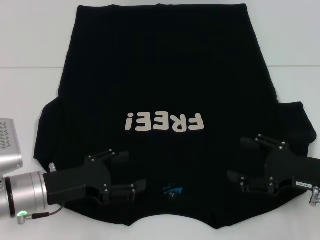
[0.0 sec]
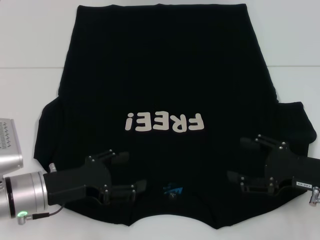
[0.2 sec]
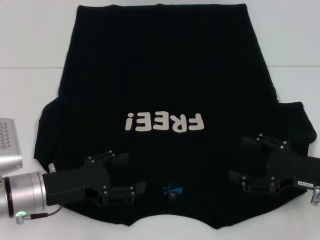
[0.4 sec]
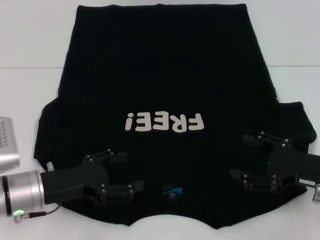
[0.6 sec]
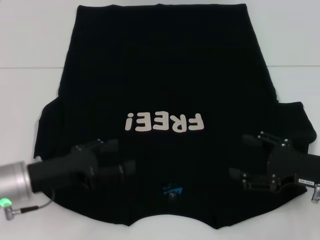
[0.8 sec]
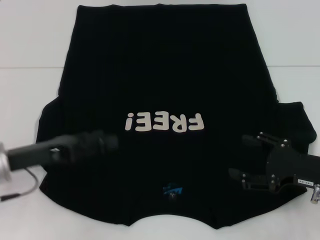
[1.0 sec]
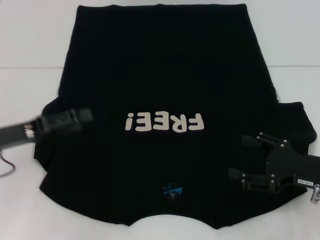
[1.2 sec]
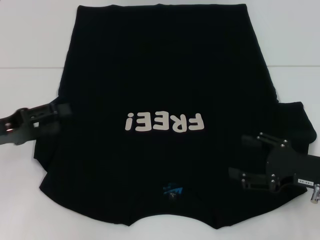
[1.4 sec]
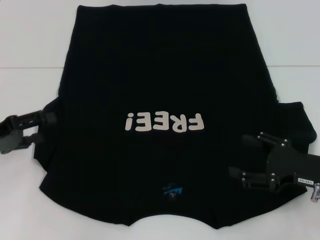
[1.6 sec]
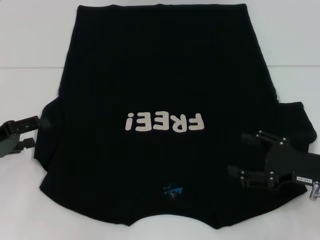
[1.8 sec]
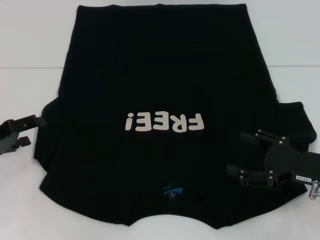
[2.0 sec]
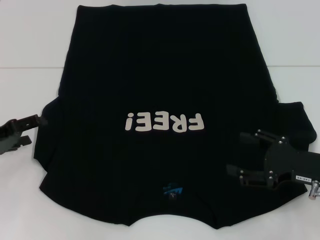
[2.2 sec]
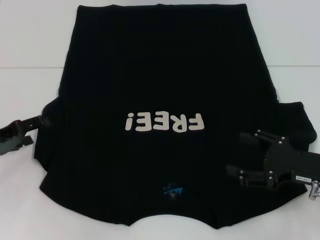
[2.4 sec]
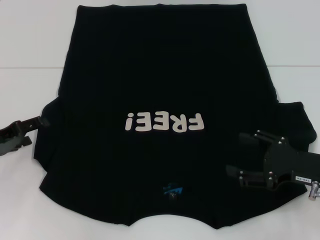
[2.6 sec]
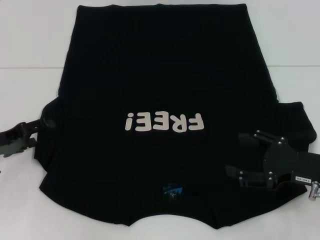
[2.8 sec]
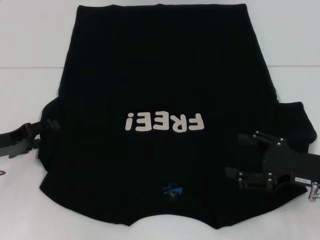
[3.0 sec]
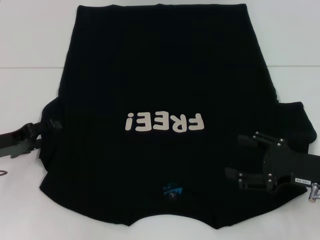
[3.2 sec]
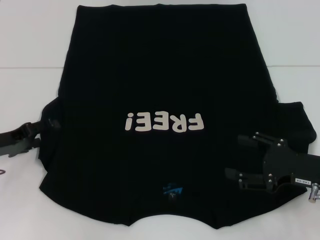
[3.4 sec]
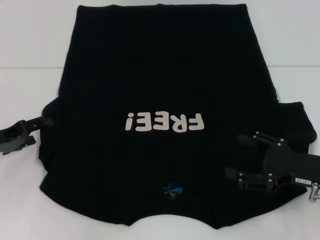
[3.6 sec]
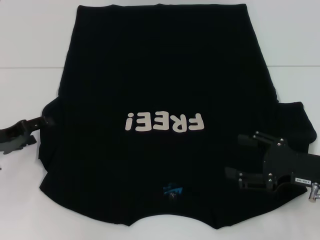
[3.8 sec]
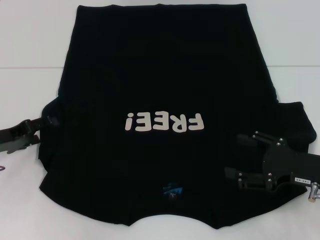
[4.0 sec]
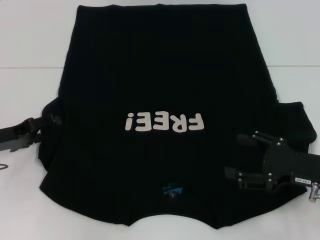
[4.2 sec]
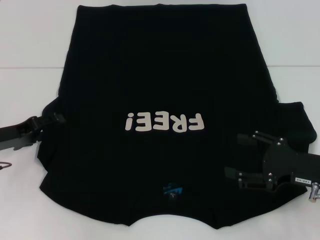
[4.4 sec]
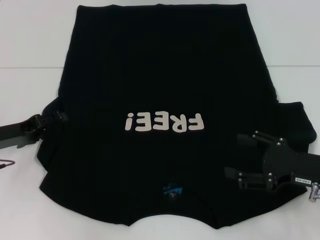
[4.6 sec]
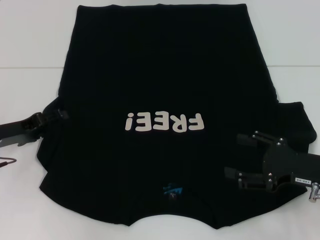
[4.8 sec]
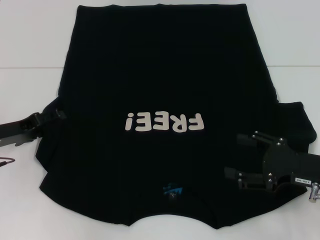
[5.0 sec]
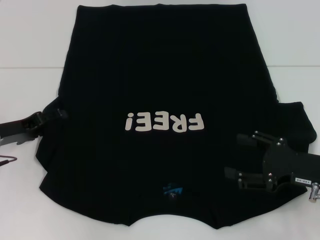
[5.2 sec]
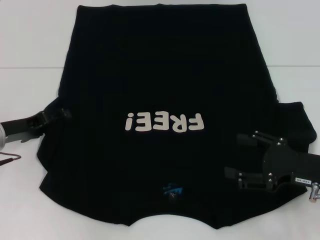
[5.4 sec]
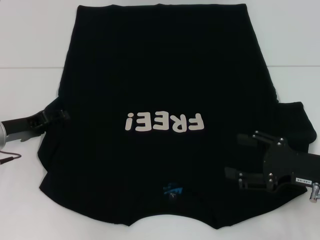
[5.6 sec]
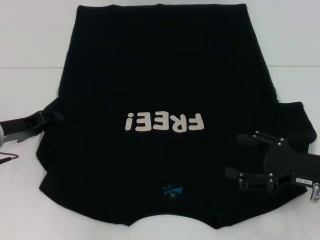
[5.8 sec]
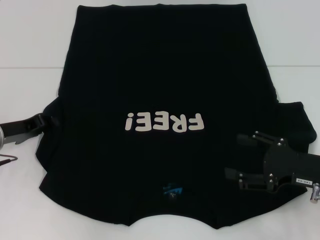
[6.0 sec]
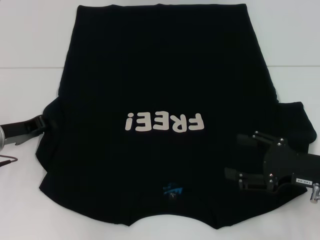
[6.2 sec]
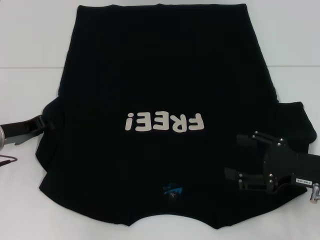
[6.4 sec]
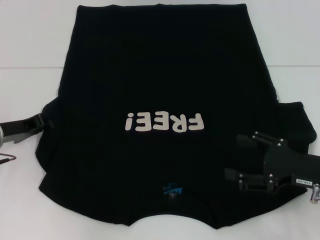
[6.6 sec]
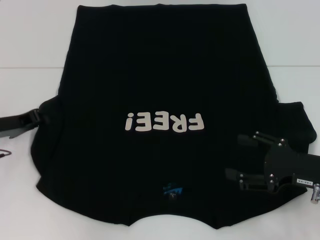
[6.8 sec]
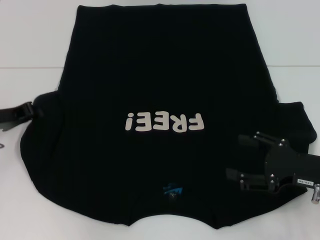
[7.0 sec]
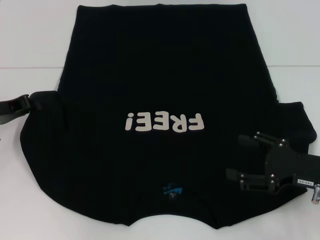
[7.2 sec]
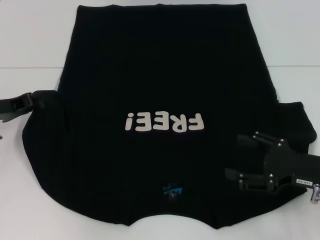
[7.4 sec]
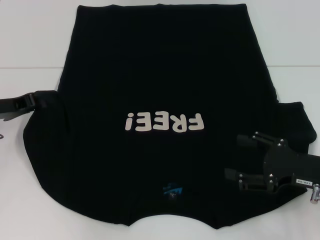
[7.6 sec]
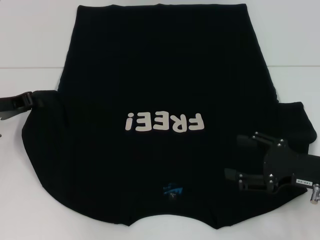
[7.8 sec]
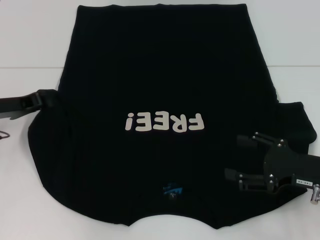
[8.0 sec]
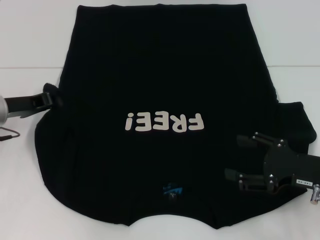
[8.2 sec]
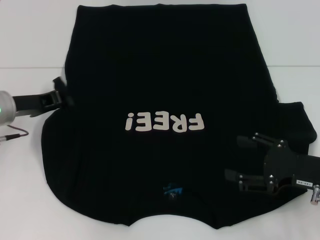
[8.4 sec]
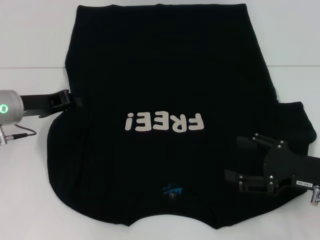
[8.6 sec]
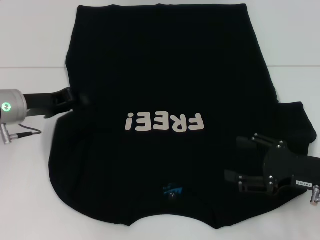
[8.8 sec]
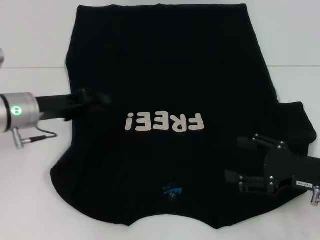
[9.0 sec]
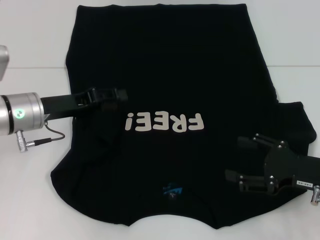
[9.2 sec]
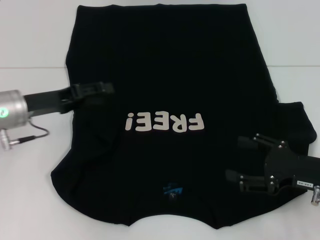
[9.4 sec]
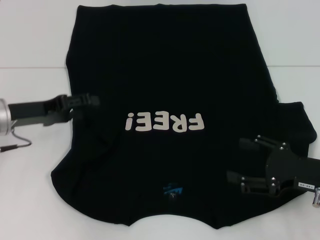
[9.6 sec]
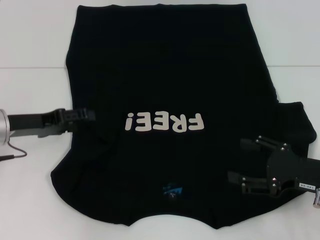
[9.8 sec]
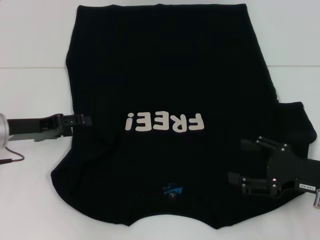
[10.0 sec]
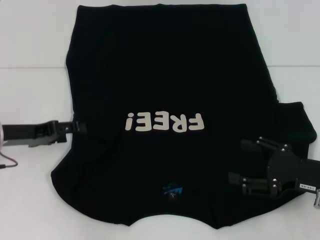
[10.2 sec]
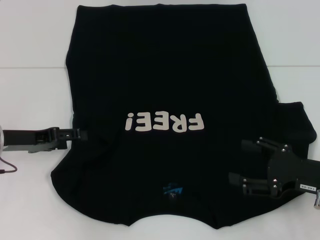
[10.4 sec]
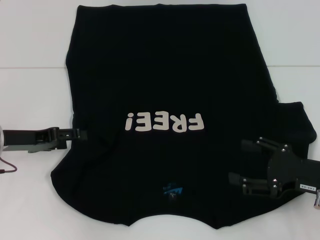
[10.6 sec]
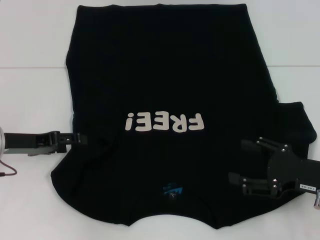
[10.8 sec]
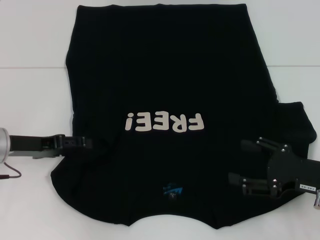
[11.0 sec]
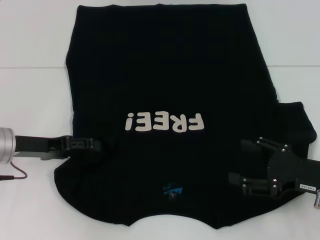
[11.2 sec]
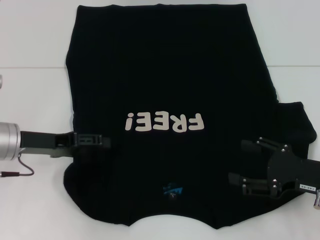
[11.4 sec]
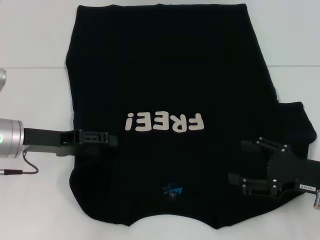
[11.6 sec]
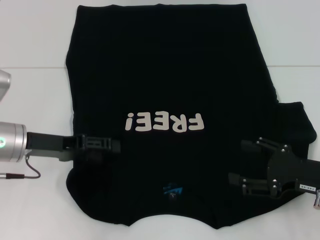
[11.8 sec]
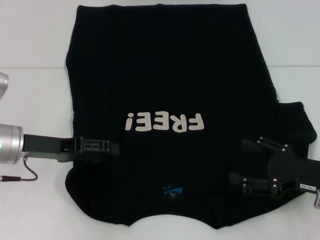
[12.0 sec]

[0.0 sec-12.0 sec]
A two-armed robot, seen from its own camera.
Step, 0.0 sec to 10.0 sec: Fold the bottom left sleeve with your left hand.
0.0 sec to 1.6 sec: The left gripper travels to the left and upward by some 15 cm.
1.6 sec to 3.0 sec: The left gripper moves about 5 cm.
3.0 sec to 4.4 sec: The grippers move only a little.
4.4 sec to 6.0 sec: The left gripper closes up.
6.0 sec to 7.6 sec: The left gripper closes.
7.6 sec to 9.0 sec: The left gripper travels to the right by roughly 5 cm.
9.0 sec to 10.4 sec: The left gripper ends up roughly 5 cm from where it was, and opens up.
10.4 sec to 12.0 sec: The grippers move only a little.

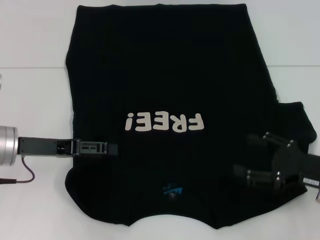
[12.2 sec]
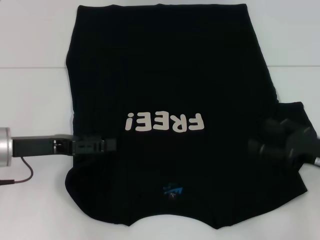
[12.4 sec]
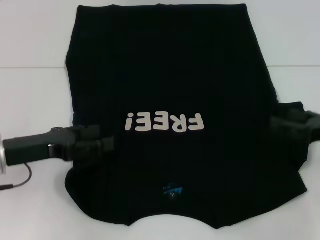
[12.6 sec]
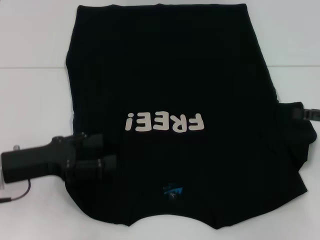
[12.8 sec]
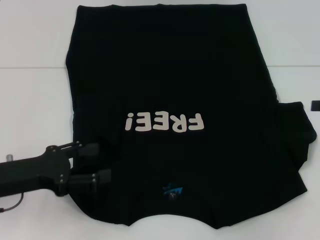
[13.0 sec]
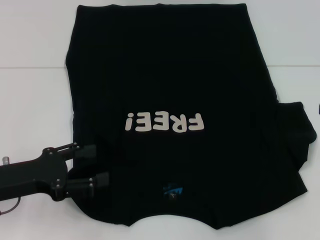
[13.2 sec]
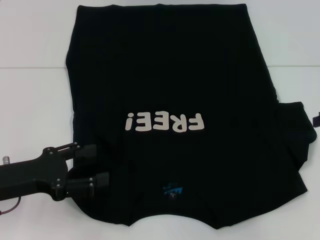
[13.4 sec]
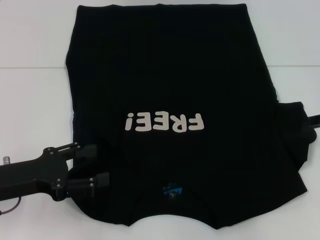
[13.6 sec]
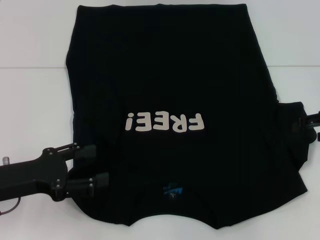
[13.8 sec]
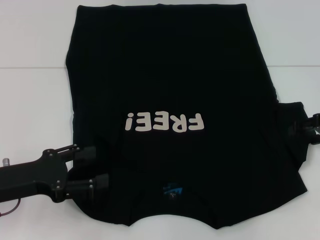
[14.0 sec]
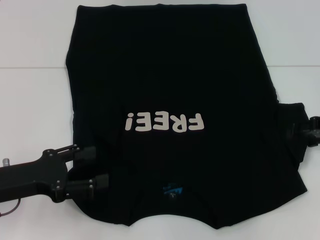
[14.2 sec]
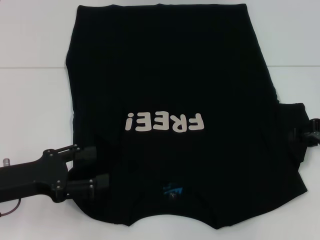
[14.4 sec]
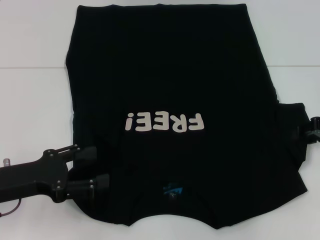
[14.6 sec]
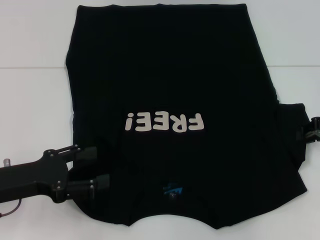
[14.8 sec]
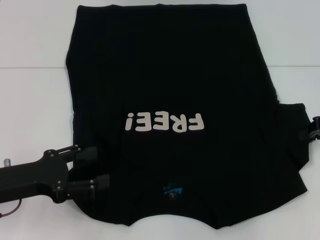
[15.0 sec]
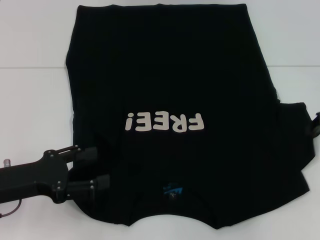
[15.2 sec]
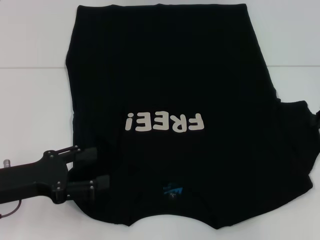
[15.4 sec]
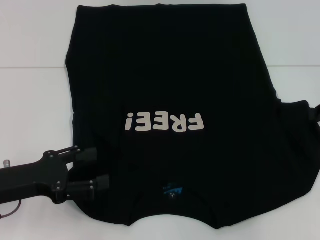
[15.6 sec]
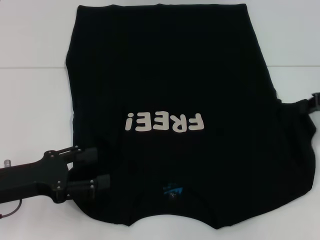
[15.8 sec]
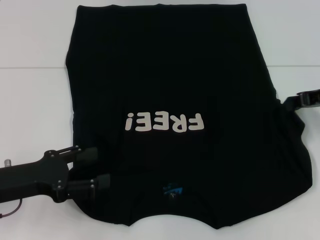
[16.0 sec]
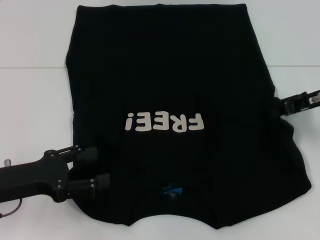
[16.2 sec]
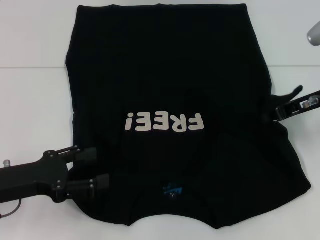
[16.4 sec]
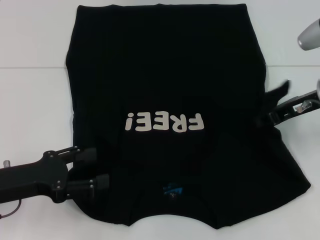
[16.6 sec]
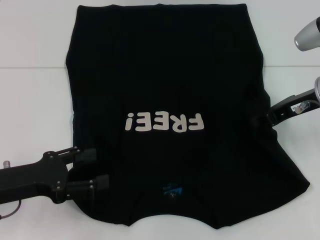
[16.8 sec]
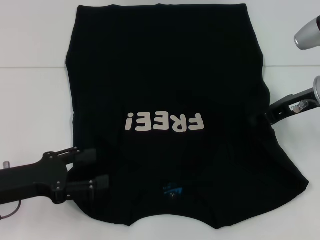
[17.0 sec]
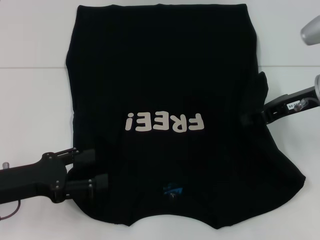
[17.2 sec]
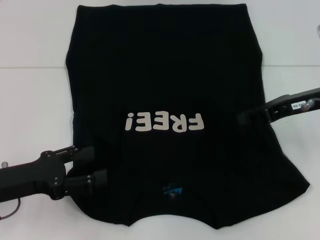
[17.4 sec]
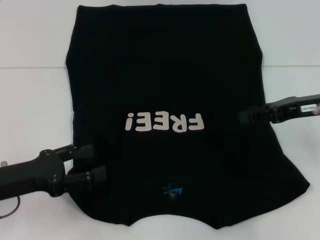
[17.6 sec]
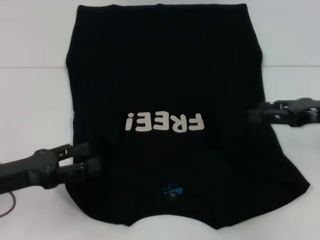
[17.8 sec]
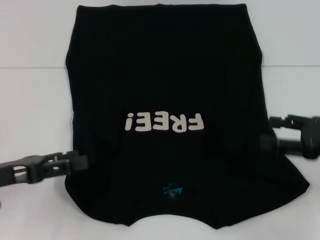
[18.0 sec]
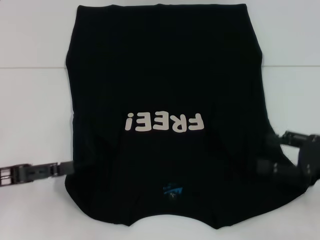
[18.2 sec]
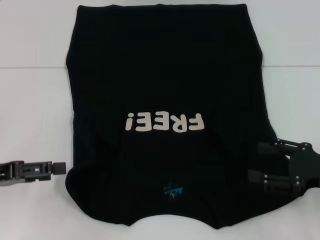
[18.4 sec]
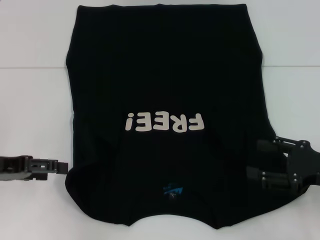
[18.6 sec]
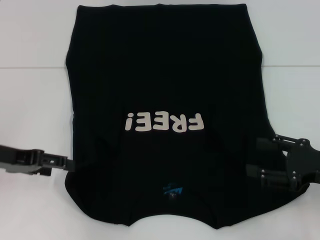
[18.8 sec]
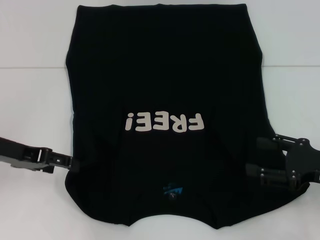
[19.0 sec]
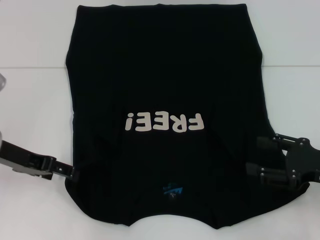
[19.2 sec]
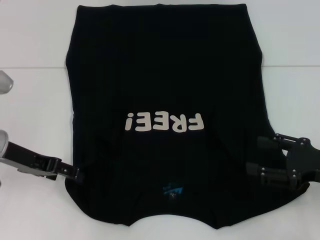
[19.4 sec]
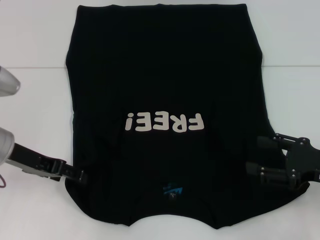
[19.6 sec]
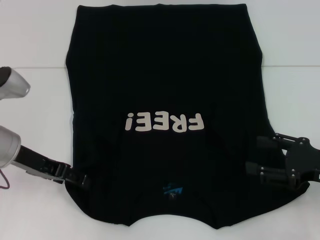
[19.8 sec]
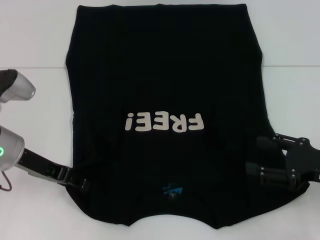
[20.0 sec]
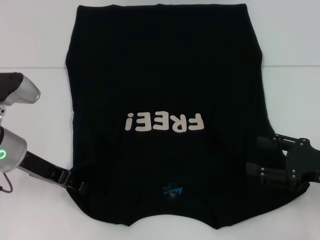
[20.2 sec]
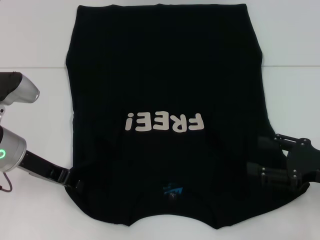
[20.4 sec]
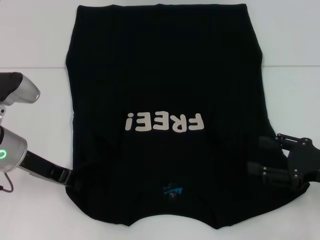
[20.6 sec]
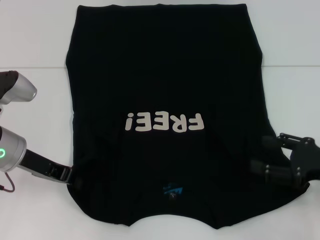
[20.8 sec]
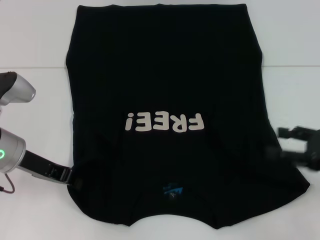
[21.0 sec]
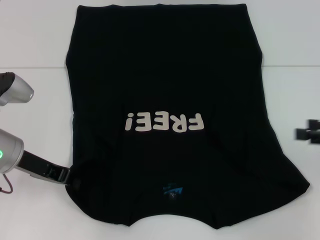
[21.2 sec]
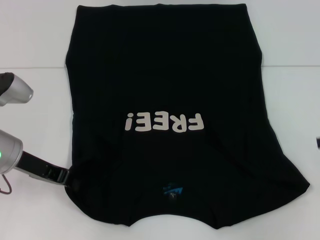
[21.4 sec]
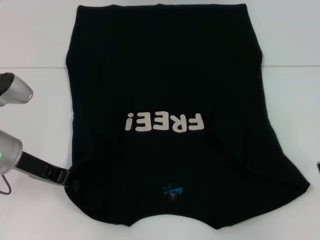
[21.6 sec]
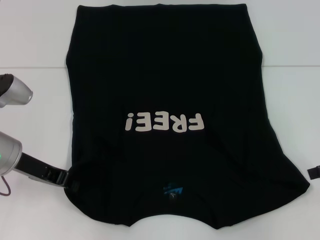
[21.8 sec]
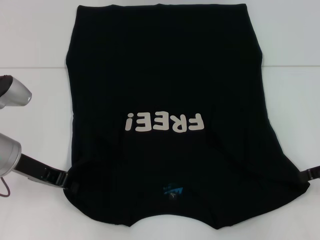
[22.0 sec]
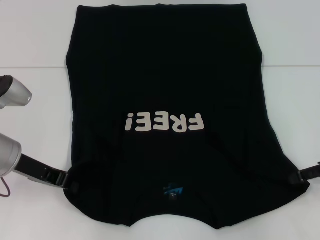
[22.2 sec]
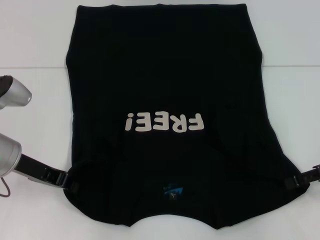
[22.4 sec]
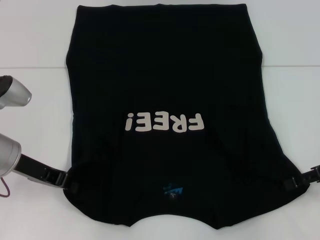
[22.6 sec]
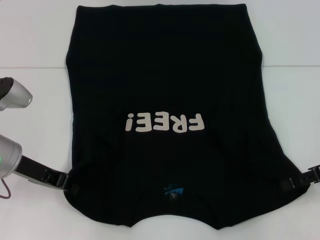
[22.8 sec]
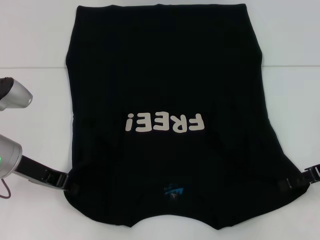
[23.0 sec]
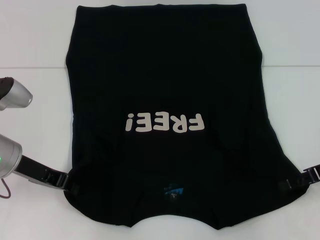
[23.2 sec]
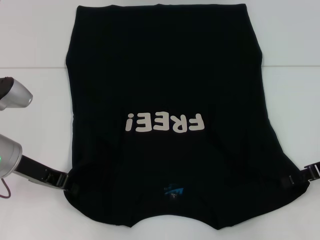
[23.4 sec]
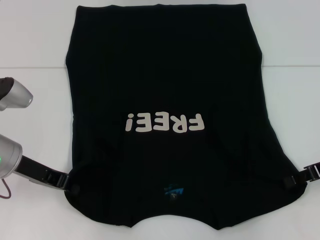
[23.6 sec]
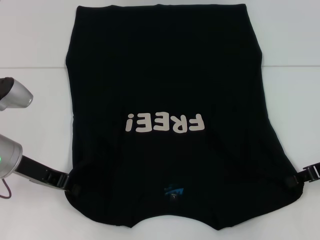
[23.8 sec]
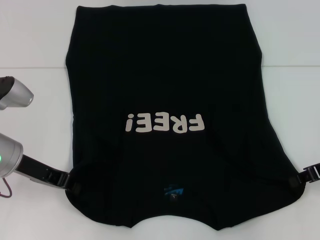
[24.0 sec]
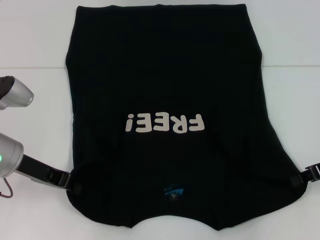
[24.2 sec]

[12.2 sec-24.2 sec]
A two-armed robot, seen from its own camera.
Step, 12.2 sec to 18.6 sec: Fold the bottom right sleeve with your right hand.
12.2 sec to 13.8 sec: The left gripper is displaced backward by about 5 cm; the right gripper is displaced forward, upward and to the right by some 15 cm.
13.8 sec to 15.2 sec: The right gripper closes up.
15.2 sec to 16.6 sec: The right gripper travels to the left by about 10 cm.
16.6 sec to 18.2 sec: The right gripper travels backward, to the right and downward by approximately 15 cm, and opens.
18.2 sec to 19.8 sec: The left gripper goes approximately 10 cm forward and to the right.
19.8 sec to 21.2 sec: The right gripper shifts about 5 cm to the right, while the left gripper closes up.
21.2 sec to 22.6 sec: The right gripper moves approximately 5 cm.
22.6 sec to 24.2 sec: The right gripper closes.
